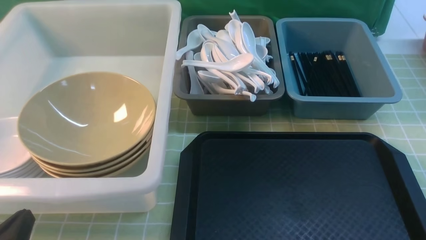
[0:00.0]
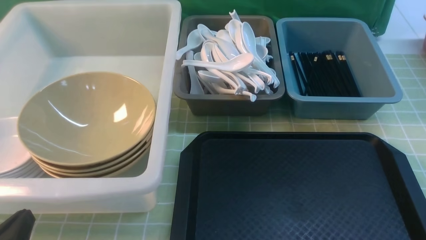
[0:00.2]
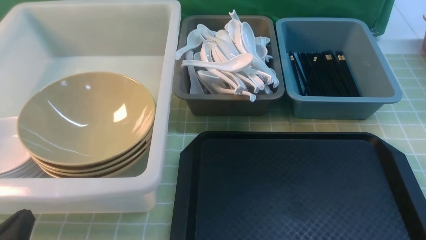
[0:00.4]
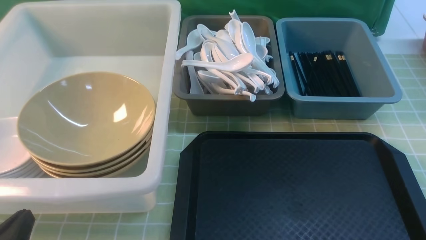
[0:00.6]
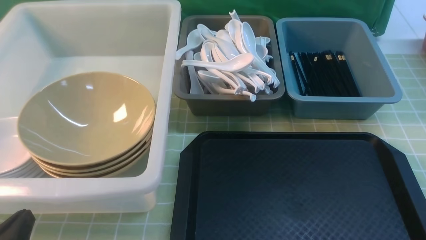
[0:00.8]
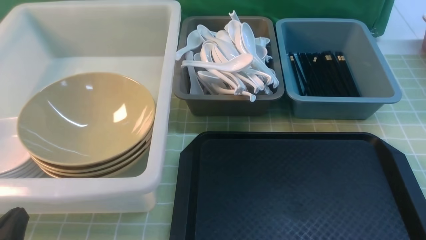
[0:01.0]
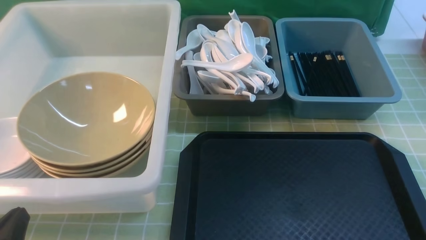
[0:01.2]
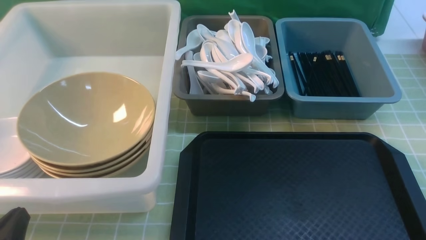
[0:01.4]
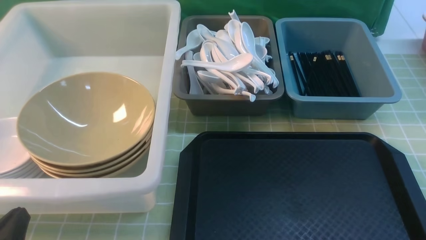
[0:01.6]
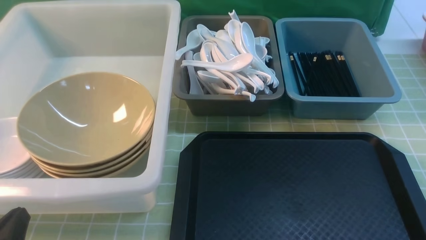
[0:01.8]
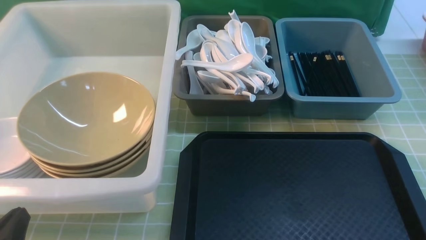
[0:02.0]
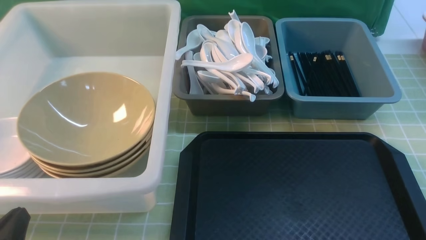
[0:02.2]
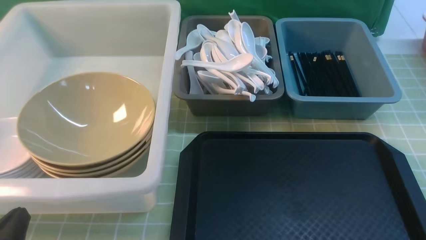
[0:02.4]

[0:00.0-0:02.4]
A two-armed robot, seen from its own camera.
Task of the whole recording: on green table put chopsticks spoon bowls plates into blue grey white boxes.
0:00.0 to 0:02.4: Both grippers stay about where they are.
